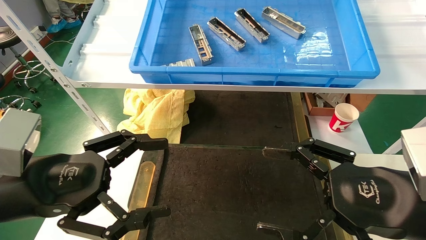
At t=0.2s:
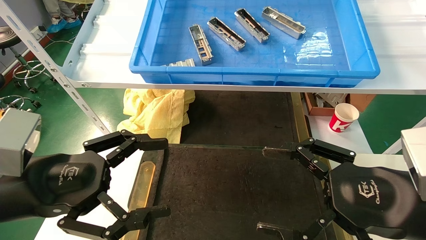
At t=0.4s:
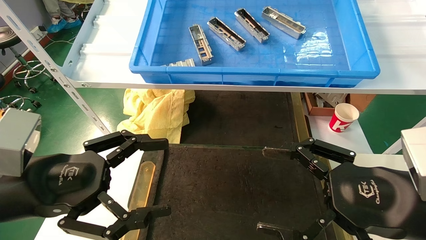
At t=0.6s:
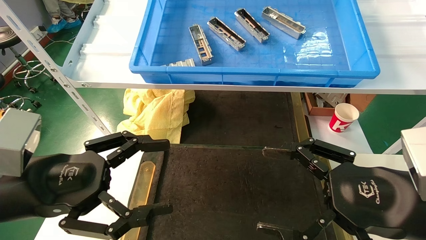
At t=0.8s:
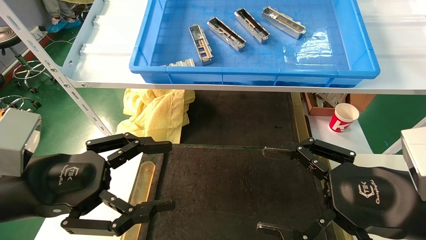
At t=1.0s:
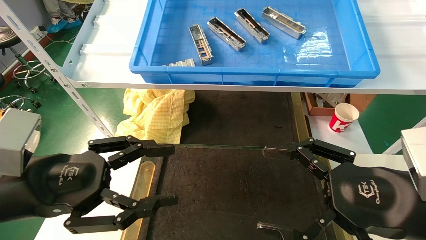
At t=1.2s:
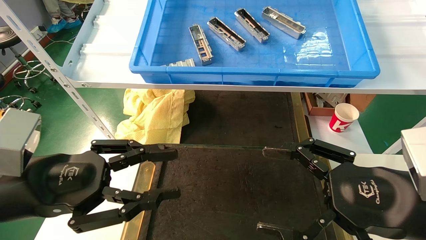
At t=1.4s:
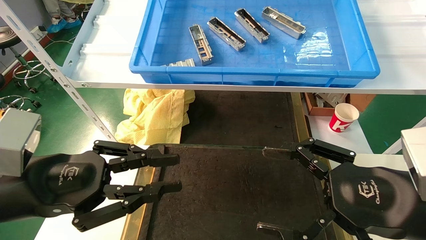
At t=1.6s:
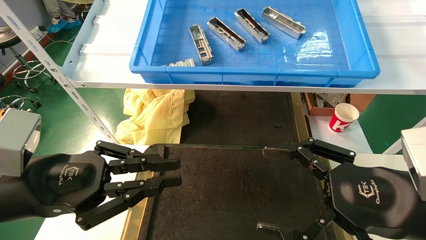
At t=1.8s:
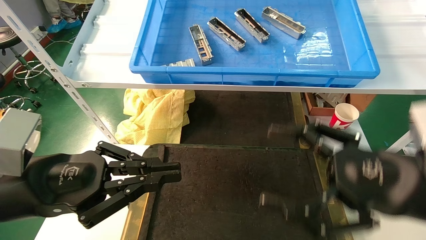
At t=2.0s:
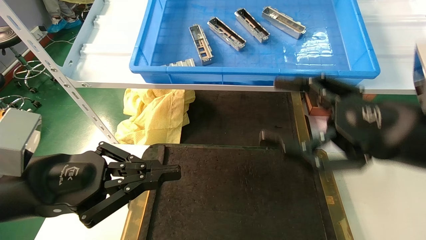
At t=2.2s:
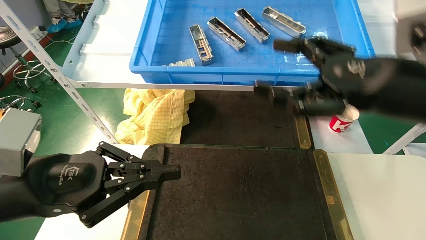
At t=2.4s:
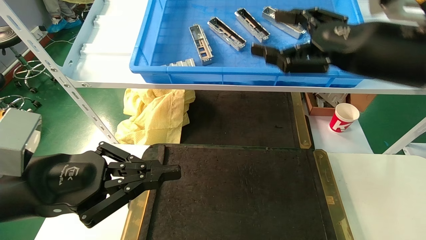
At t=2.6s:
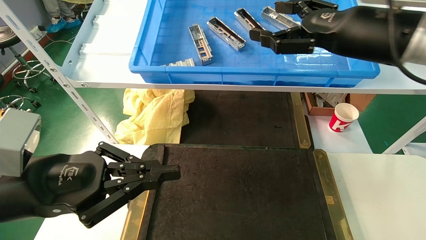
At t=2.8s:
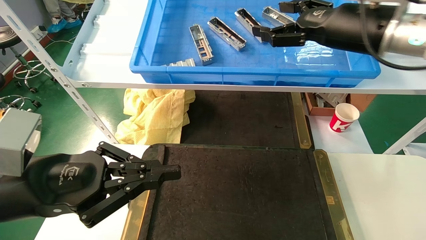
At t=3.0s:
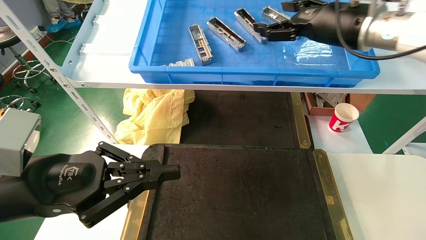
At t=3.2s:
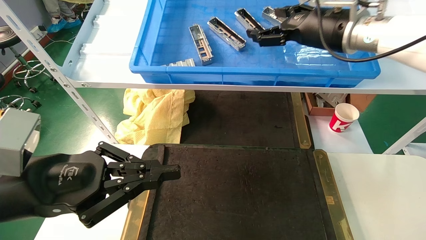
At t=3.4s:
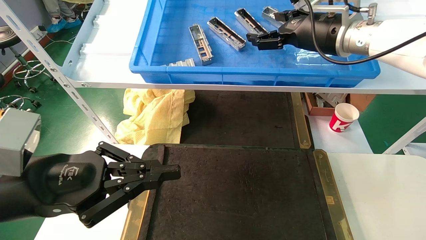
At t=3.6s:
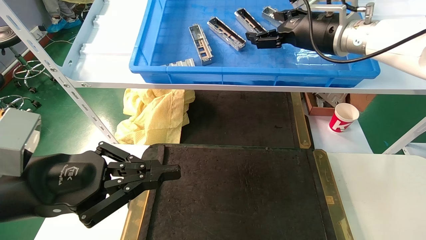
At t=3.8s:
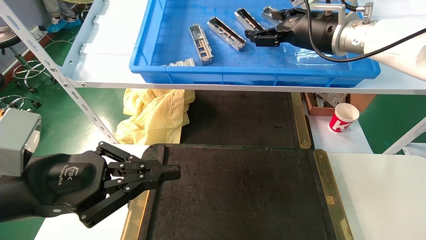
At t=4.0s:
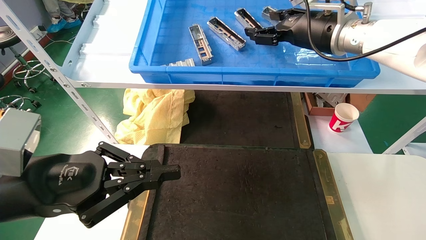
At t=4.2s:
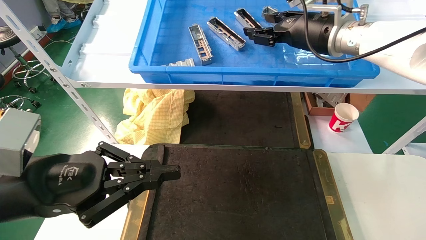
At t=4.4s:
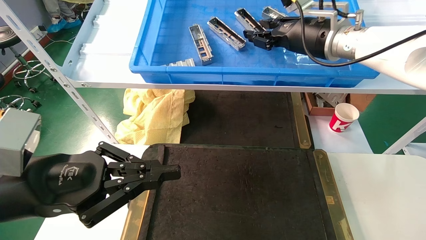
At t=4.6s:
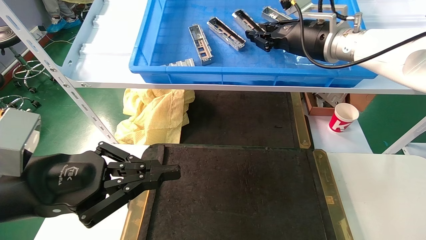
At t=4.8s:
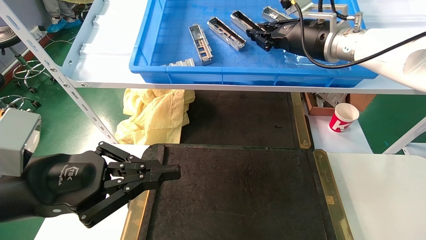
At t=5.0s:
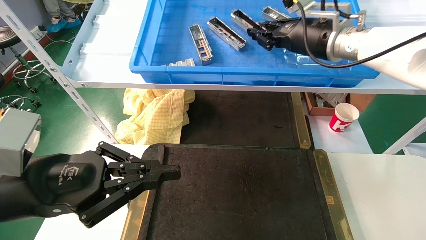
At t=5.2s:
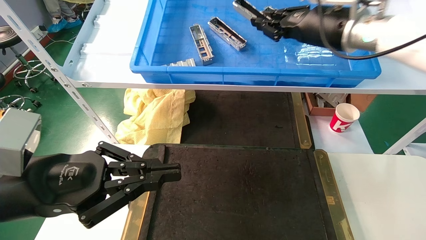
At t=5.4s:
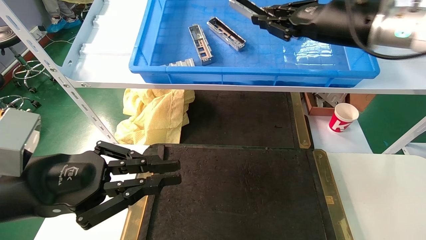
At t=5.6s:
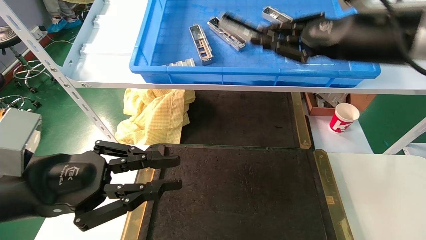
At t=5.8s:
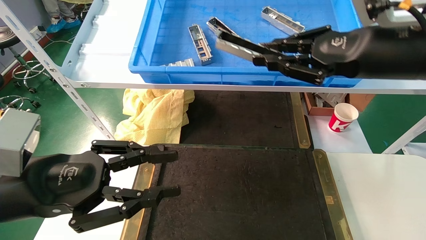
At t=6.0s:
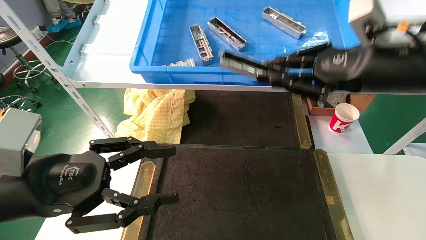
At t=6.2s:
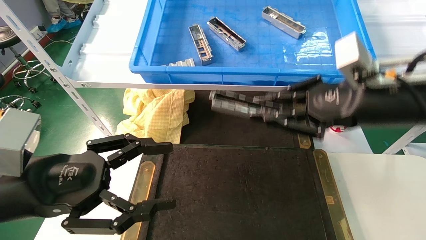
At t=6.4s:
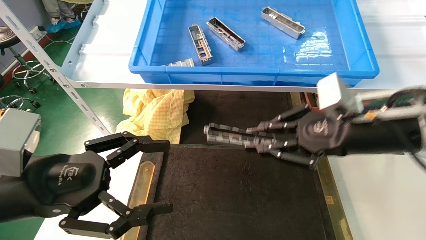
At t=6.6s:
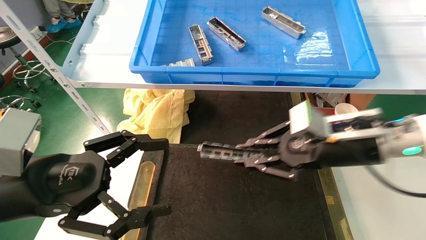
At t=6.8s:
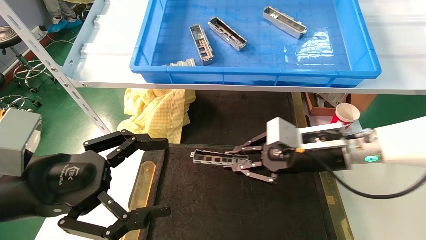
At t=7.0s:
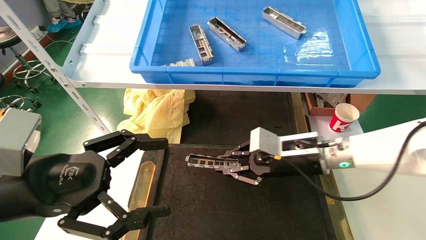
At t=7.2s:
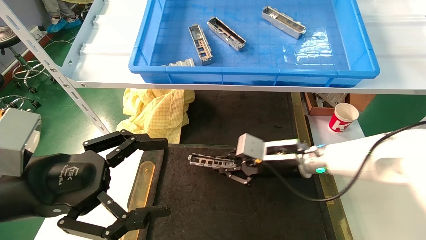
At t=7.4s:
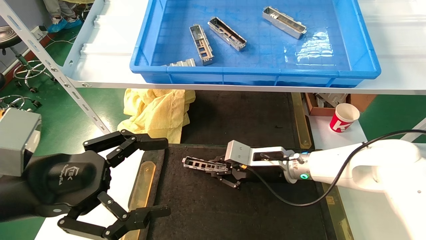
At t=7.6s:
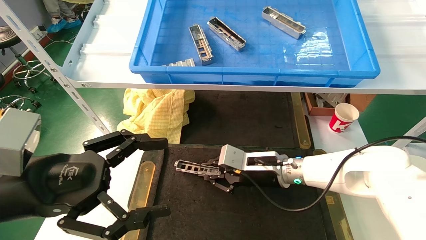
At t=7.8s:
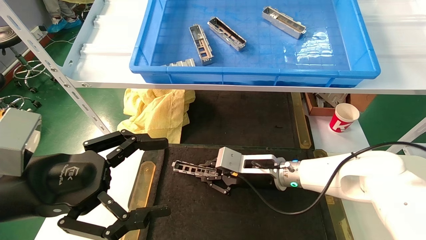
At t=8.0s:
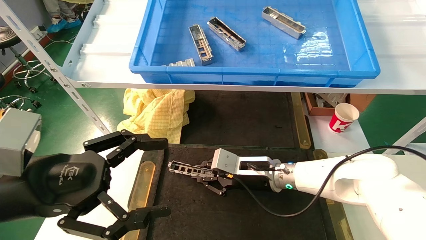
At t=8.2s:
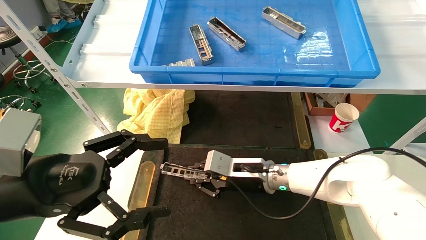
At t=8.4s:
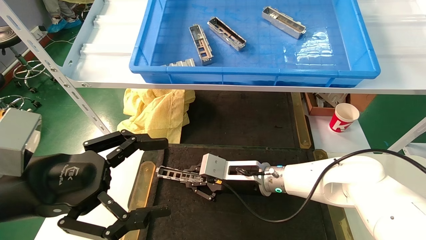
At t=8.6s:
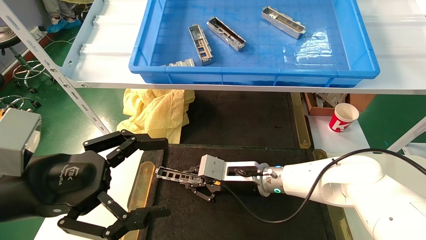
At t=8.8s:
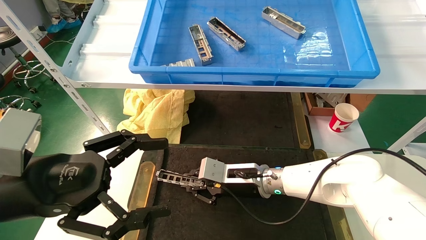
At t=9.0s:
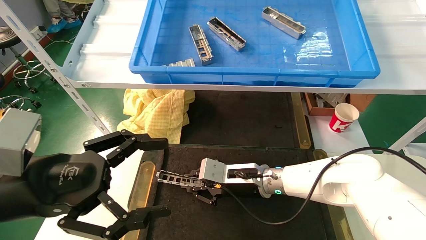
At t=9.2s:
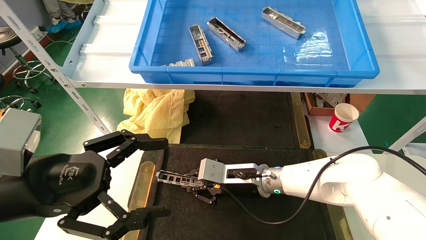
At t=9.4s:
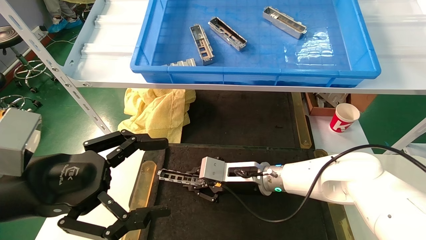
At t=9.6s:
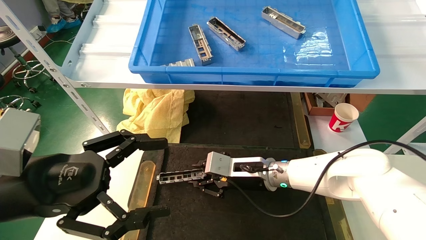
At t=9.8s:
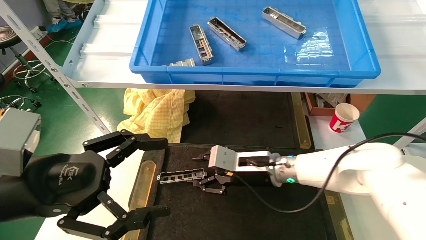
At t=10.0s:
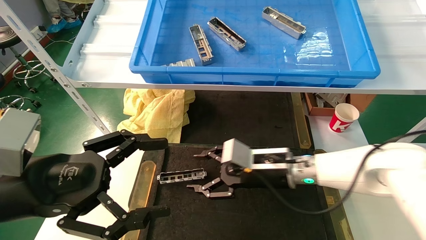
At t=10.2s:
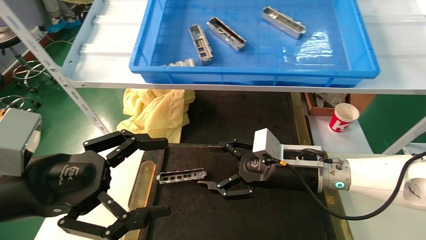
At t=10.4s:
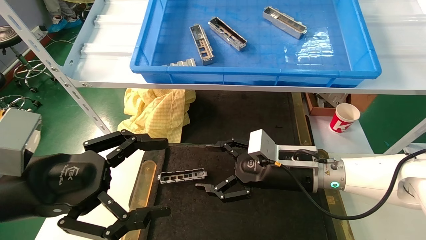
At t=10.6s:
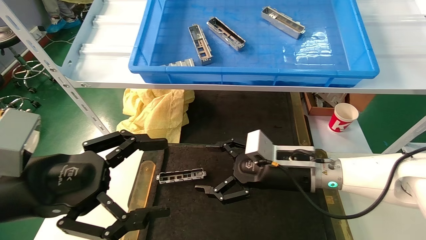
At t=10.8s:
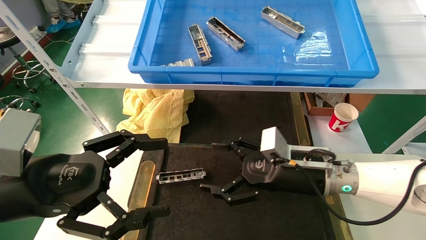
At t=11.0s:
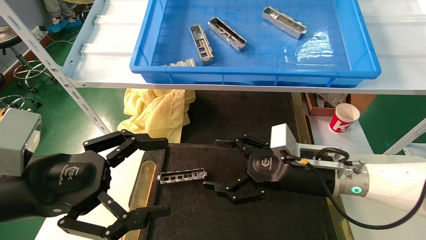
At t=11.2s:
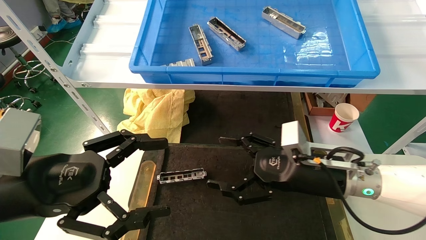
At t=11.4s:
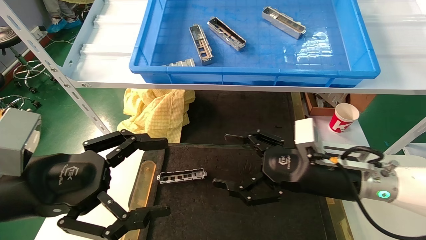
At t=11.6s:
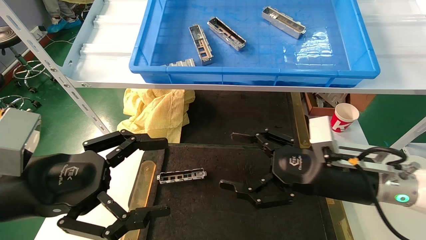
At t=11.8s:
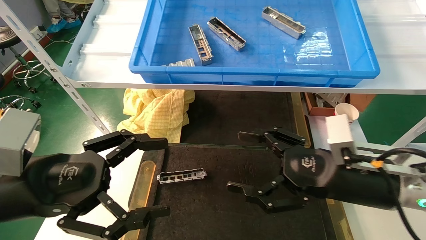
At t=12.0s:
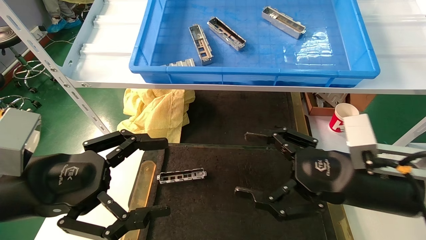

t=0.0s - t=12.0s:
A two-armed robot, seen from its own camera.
Task of the whole recording: grasp the part and place them on the black container.
Step, t=2.0s - t=5.4s: Pick up and lift the front USB bracket from the feeding area.
Step, t=5.6s - t=9.8s: Place the front USB bracket into the box.
t=0.0s - t=1.6s: The left gripper closes.
t=1.6s - t=3.0s: The right gripper moves forward and upward, roughly 30 cm.
t=3.0s - t=4.4s: The right gripper closes up.
t=4.4s - t=6.0s: The right gripper heads backward and to the right, covering some 15 cm, and closes; the left gripper opens up.
t=6.0s - t=7.6s: The right gripper moves downward, to the left and forward, approximately 30 cm; the left gripper opens its fingers.
t=7.6s - t=9.0s: The right gripper moves approximately 5 cm.
t=9.0s - t=10.4s: The right gripper travels to the right and upward by some 10 cm, and opens.
t=10.4s - t=12.0s: The right gripper shifts some 15 cm backward and to the right.

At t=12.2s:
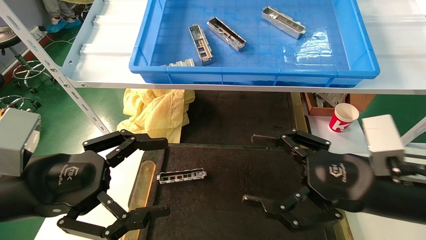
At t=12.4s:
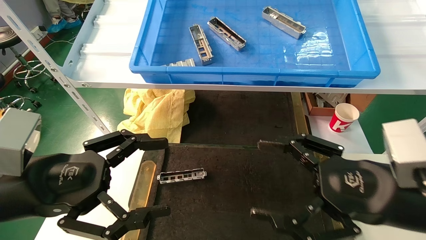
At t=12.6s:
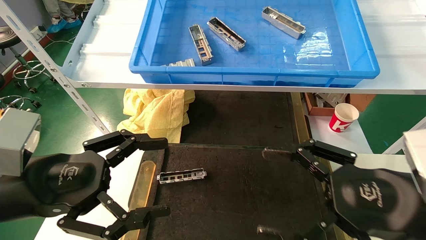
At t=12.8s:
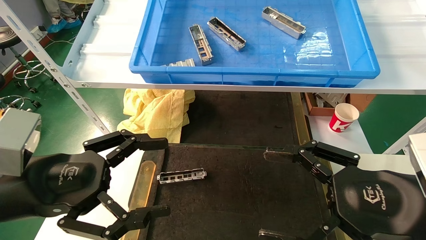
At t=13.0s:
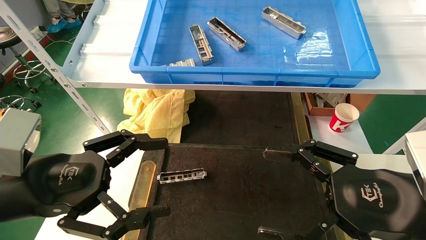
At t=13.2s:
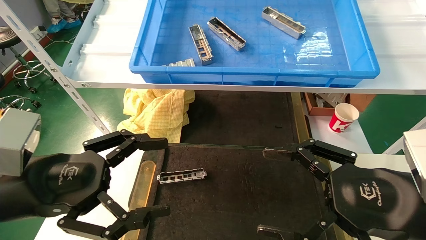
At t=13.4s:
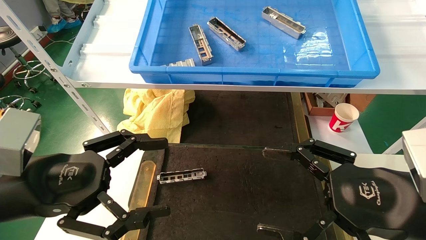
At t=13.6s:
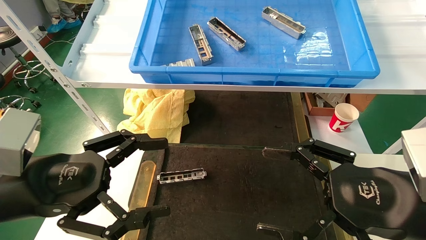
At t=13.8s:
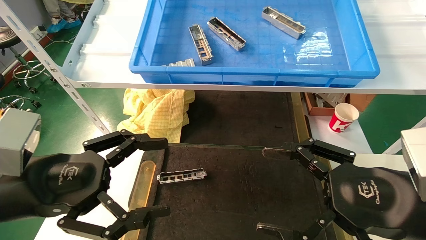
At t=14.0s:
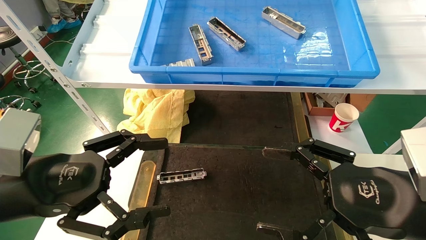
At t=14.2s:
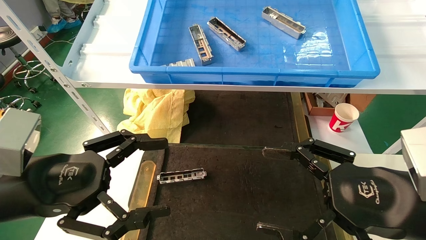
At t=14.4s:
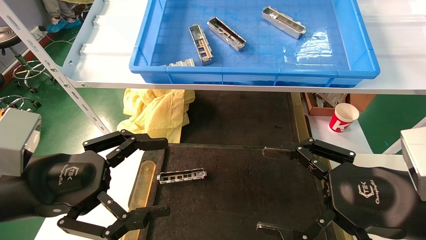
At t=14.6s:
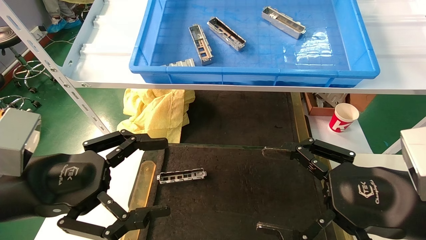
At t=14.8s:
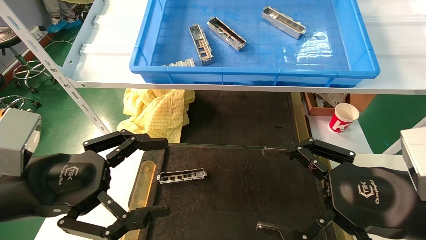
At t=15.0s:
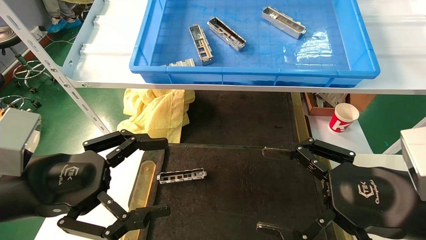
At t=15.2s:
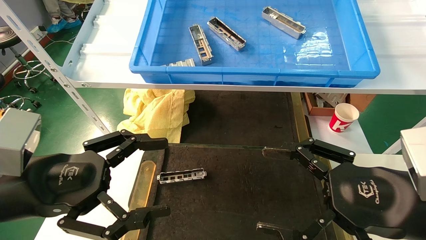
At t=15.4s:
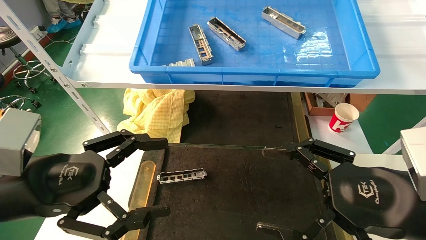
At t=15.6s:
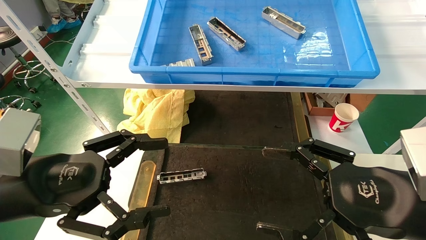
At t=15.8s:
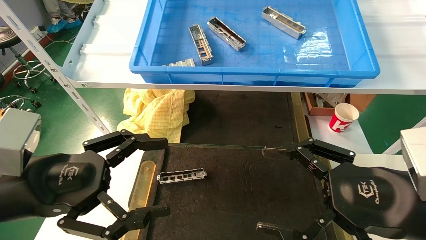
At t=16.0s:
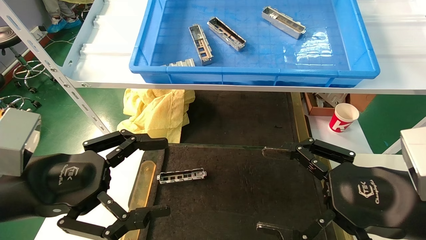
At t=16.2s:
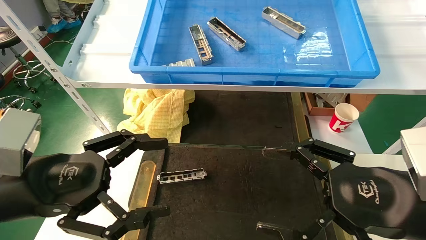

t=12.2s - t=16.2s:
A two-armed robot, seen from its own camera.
Task of the whole recording: grasp the part and place them on the black container.
t=12.2s - t=13.6s: The grippers stay close to where they were, moving slightly.
t=13.6s - t=16.2s: Both grippers stay put.
